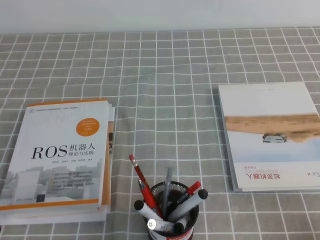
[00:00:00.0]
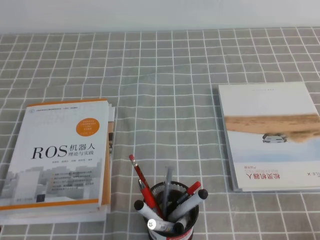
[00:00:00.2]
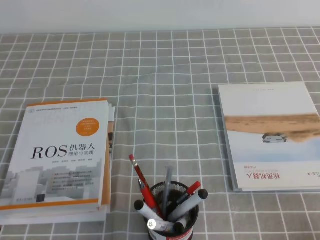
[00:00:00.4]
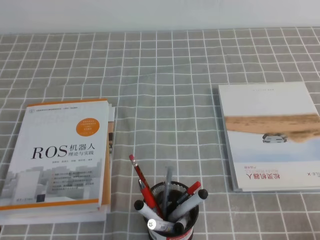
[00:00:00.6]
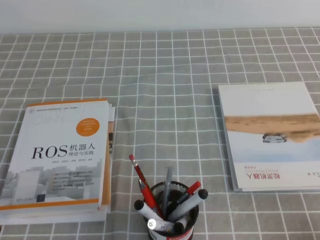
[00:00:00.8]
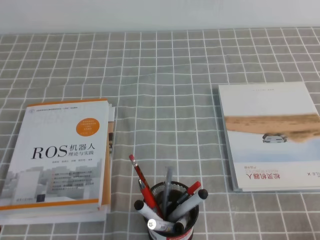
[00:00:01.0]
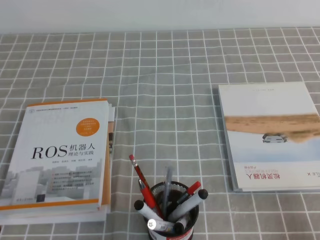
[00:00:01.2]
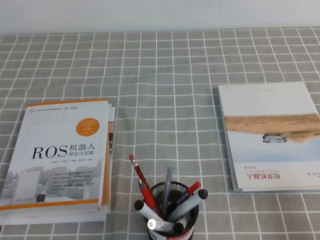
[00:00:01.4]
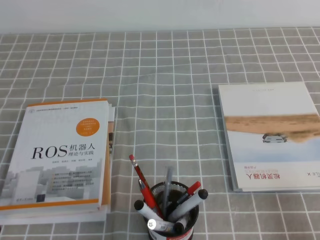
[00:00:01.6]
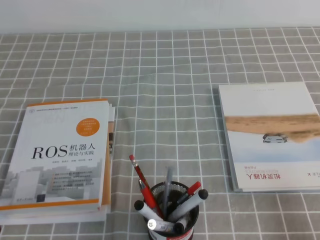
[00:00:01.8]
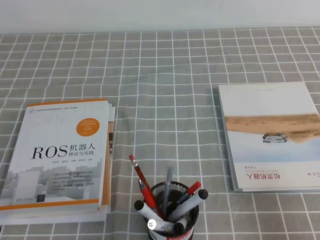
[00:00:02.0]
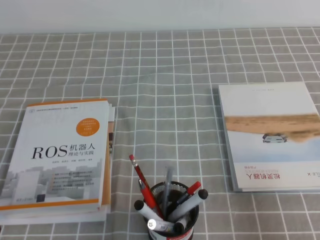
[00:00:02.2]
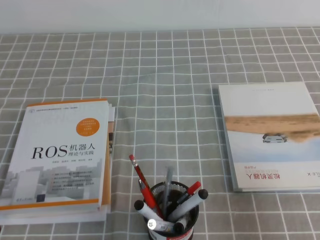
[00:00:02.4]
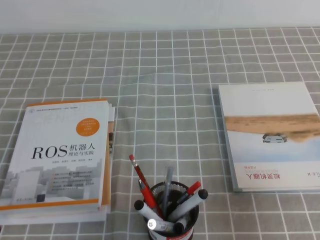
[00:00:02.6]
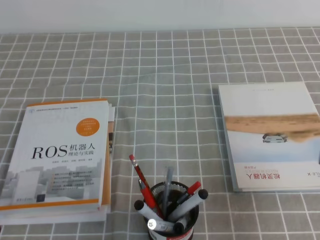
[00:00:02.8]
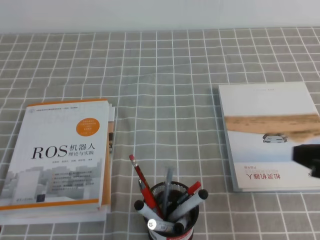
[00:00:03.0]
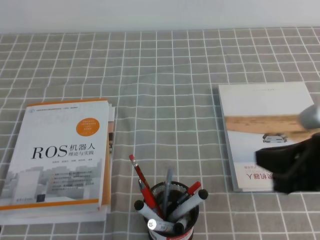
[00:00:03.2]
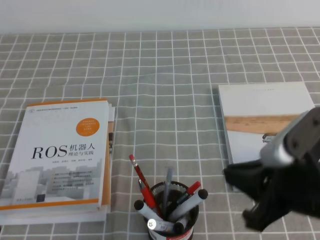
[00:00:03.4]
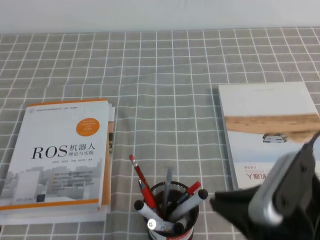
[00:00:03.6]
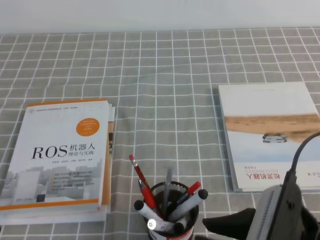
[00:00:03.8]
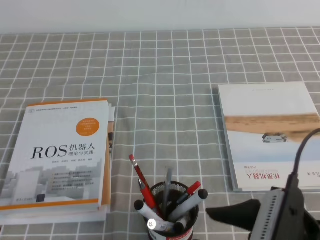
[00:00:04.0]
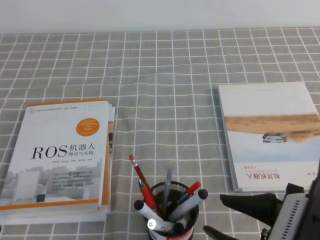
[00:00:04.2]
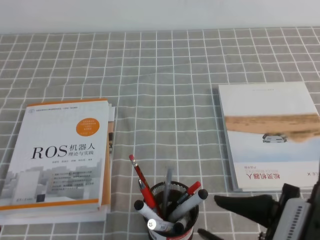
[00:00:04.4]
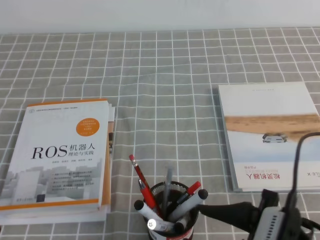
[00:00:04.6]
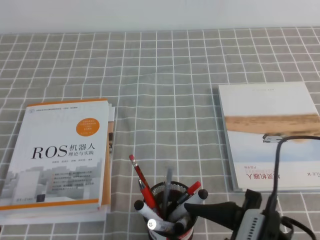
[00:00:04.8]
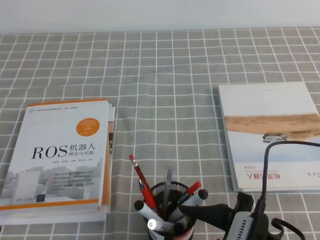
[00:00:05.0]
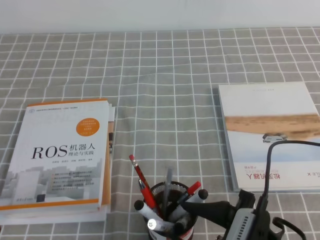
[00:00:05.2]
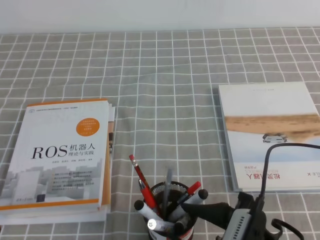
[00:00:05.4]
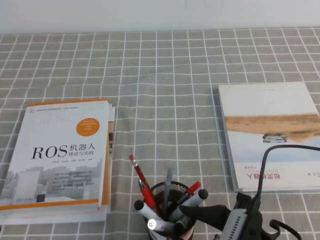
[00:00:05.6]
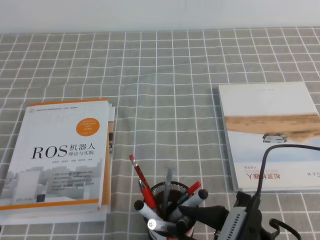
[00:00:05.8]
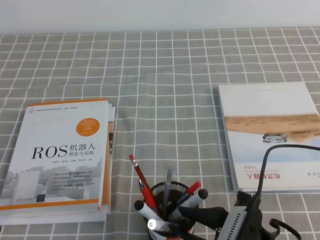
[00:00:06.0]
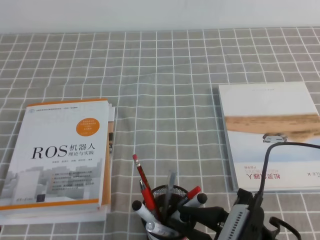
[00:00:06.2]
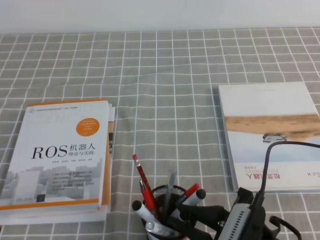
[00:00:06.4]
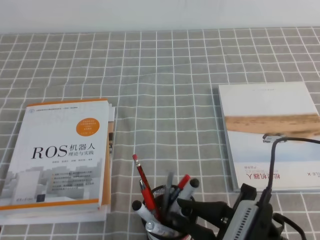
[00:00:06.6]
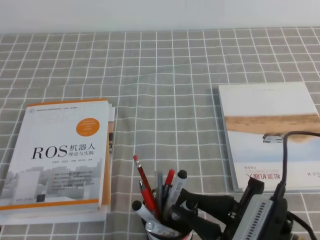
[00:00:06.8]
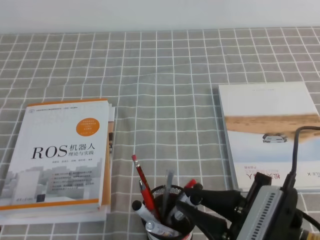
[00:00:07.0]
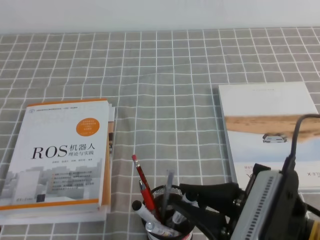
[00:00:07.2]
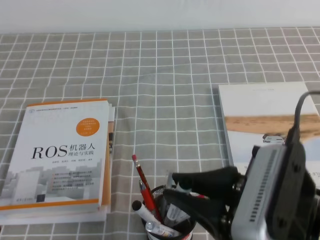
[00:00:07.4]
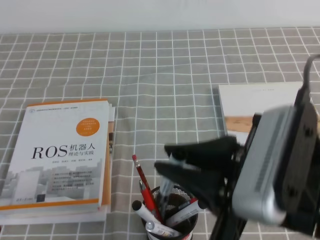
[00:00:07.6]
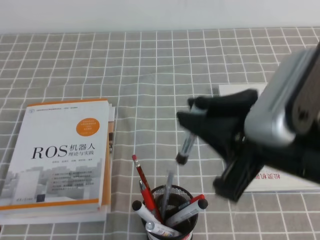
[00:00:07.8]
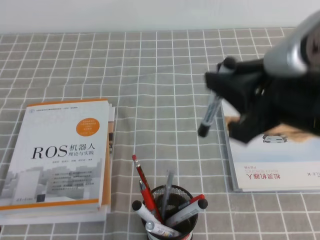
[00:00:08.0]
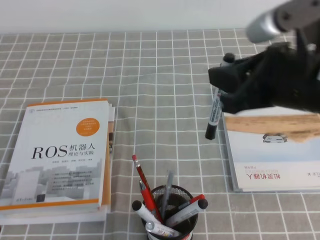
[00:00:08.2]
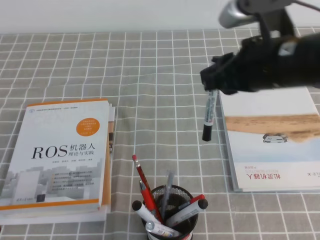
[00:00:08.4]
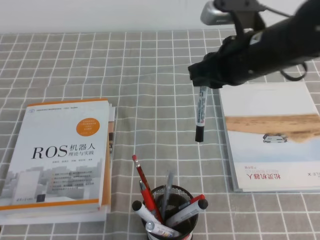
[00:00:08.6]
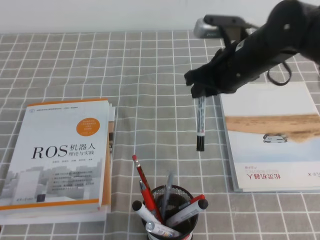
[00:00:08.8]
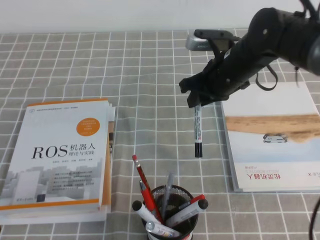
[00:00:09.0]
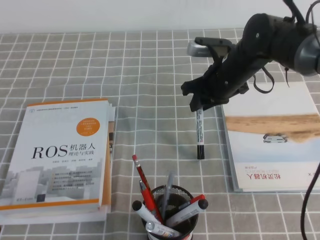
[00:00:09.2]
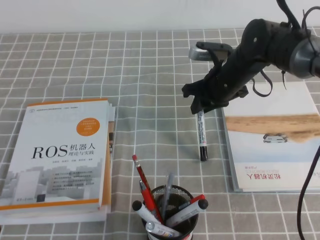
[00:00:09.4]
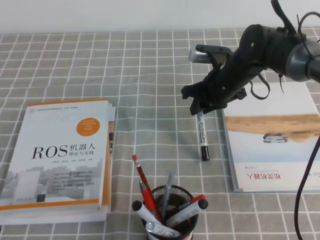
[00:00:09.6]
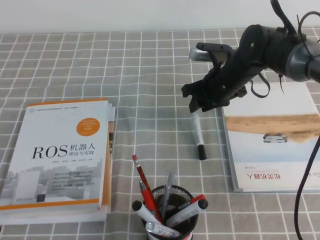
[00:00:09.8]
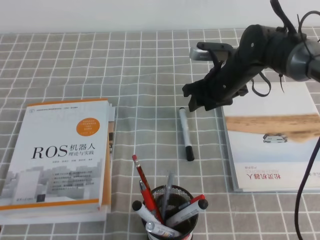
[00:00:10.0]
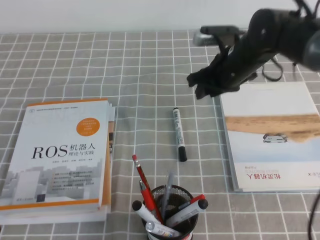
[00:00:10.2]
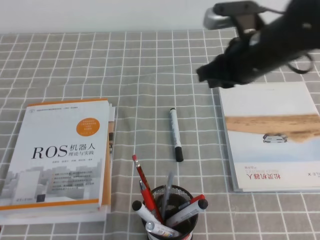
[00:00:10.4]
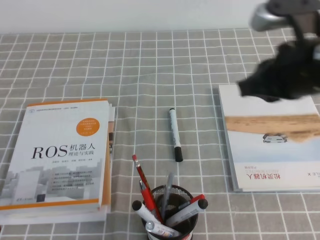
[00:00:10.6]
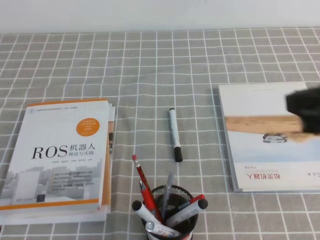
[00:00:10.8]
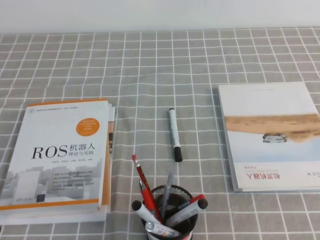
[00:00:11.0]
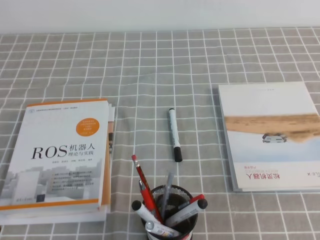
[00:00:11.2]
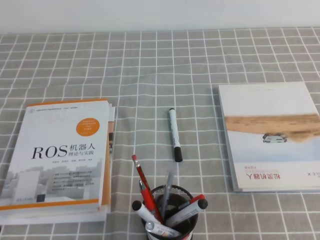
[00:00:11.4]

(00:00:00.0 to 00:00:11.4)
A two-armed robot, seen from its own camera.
00:00:01.4 - 00:00:02.8: The right gripper is displaced forward and upward by about 10 cm.
00:00:02.8 - 00:00:04.2: The right gripper shifts roughly 15 cm to the left and backward, and opens its fingers.
00:00:04.2 - 00:00:05.6: The right gripper goes about 5 cm downward.
00:00:05.6 - 00:00:07.2: The right gripper heads upward, covering approximately 10 cm, and closes.
00:00:07.2 - 00:00:08.6: The right gripper goes roughly 20 cm forward.
00:00:08.6 - 00:00:10.0: The right gripper goes about 15 cm downward and forward, and opens.
00:00:10.0 - 00:00:11.4: The right gripper is displaced backward and to the right by roughly 40 cm, and closes.

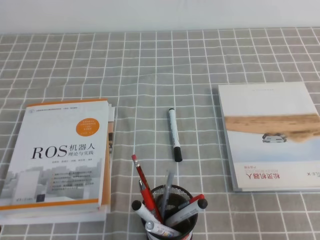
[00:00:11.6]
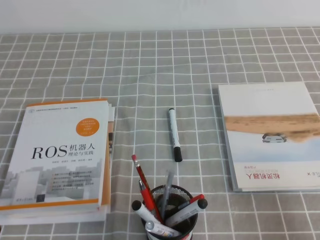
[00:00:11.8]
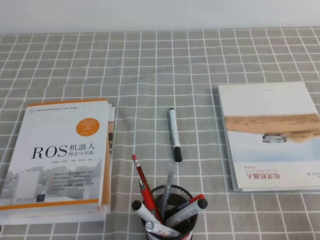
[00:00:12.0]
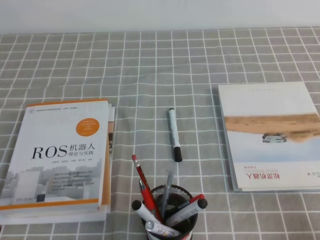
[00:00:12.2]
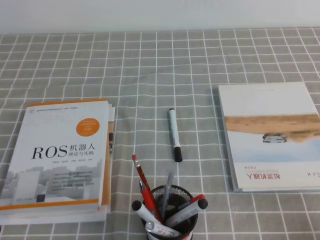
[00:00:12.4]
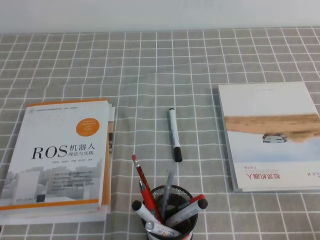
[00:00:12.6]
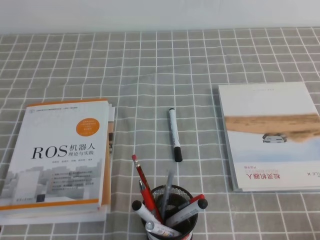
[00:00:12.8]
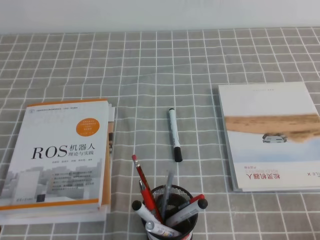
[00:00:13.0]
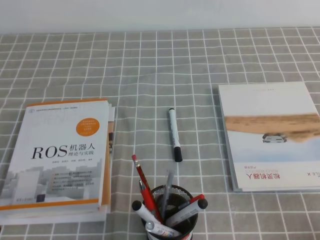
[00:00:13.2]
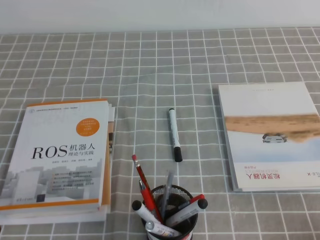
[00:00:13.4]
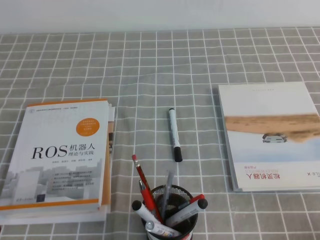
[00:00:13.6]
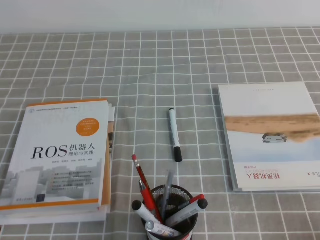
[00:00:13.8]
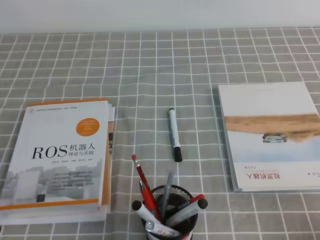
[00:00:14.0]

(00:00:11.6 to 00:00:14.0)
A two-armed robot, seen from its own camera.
00:00:11.6 - 00:00:12.8: The right gripper shifts about 10 cm downward.
00:00:12.8 - 00:00:14.0: The two grippers keep their place.
